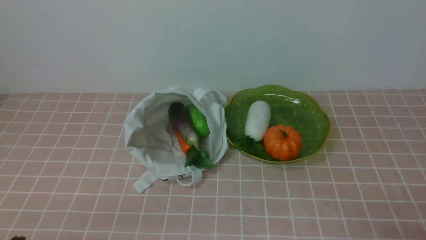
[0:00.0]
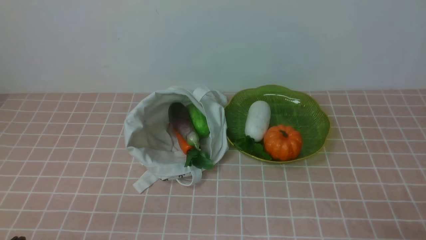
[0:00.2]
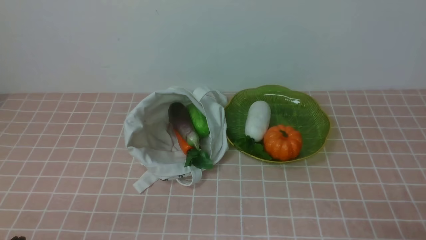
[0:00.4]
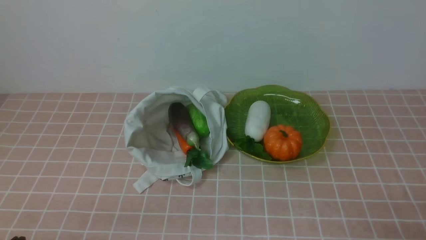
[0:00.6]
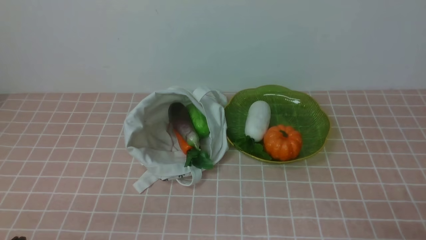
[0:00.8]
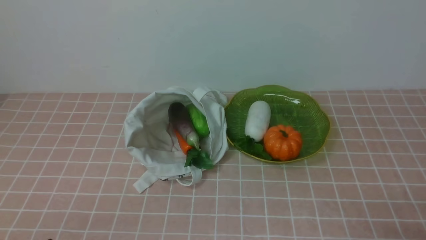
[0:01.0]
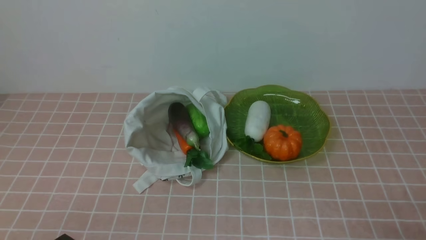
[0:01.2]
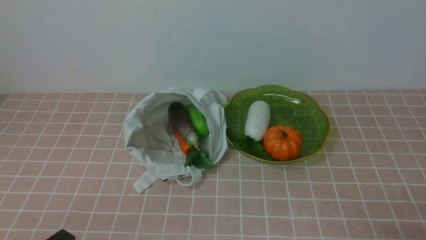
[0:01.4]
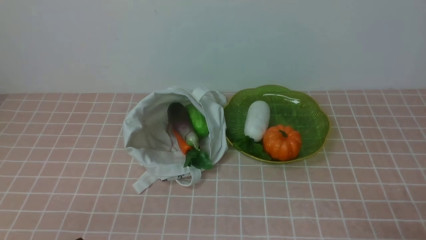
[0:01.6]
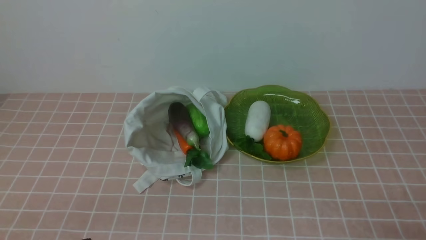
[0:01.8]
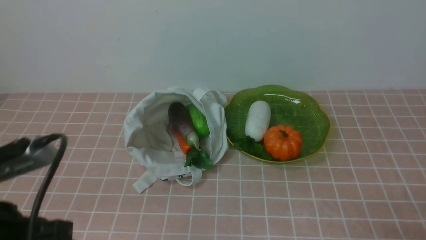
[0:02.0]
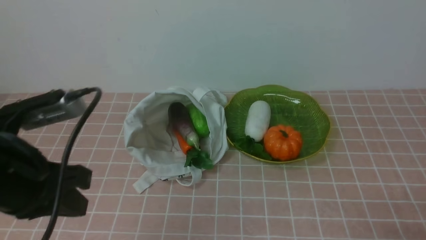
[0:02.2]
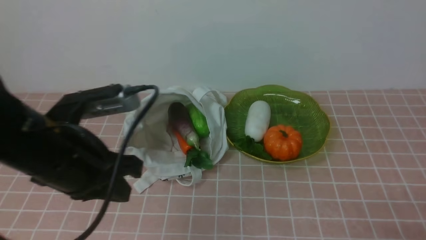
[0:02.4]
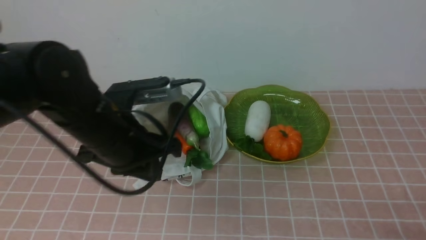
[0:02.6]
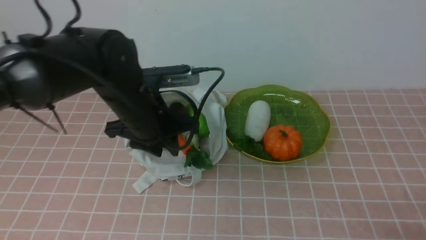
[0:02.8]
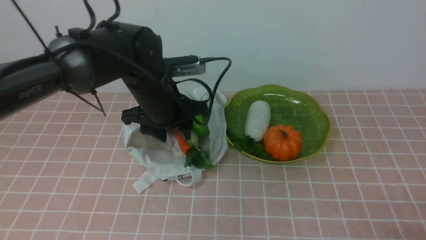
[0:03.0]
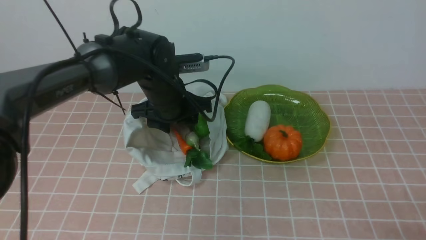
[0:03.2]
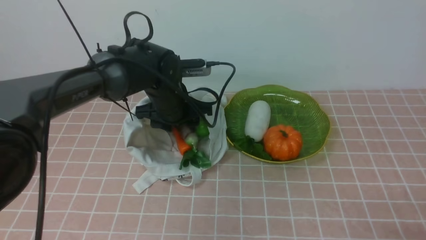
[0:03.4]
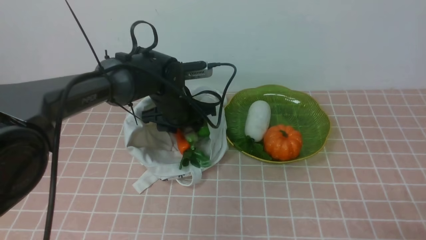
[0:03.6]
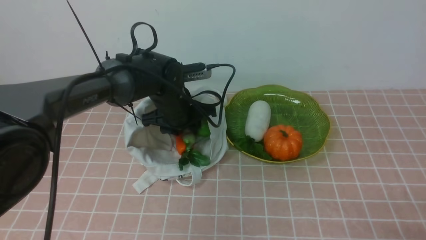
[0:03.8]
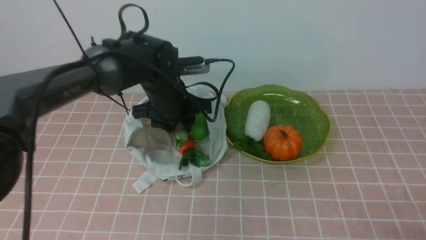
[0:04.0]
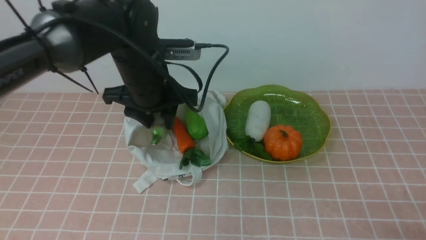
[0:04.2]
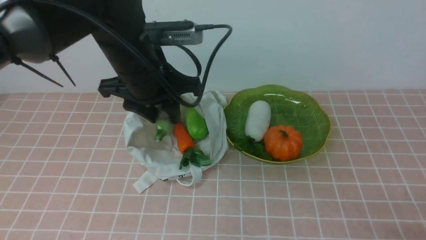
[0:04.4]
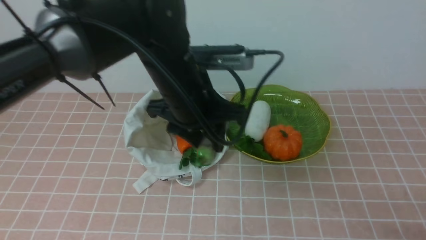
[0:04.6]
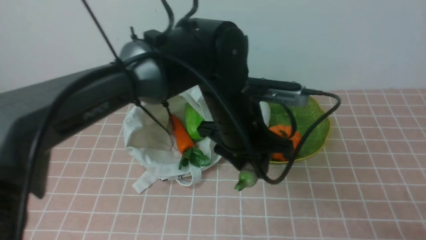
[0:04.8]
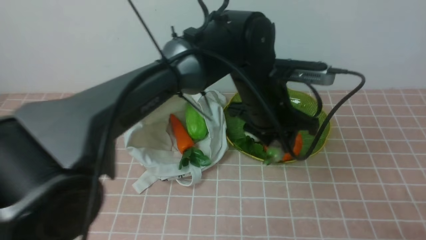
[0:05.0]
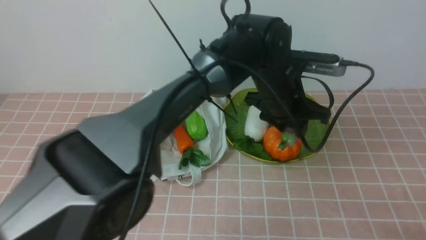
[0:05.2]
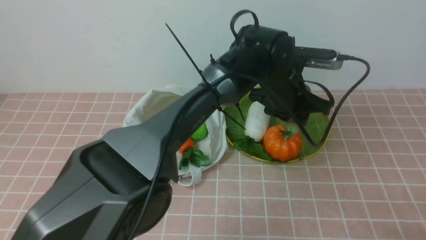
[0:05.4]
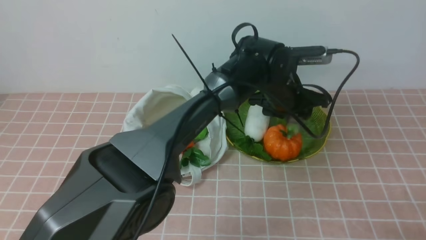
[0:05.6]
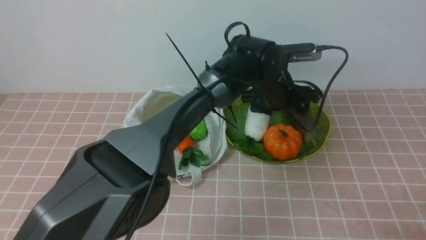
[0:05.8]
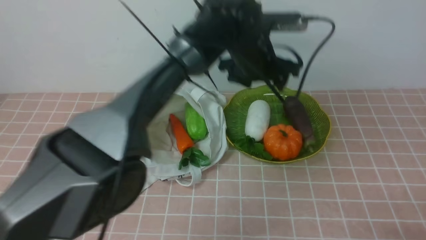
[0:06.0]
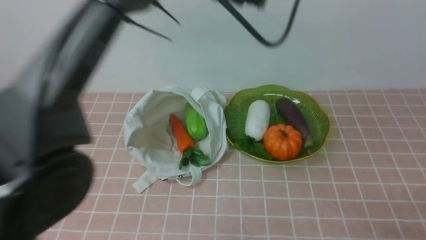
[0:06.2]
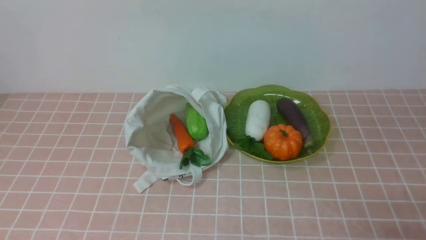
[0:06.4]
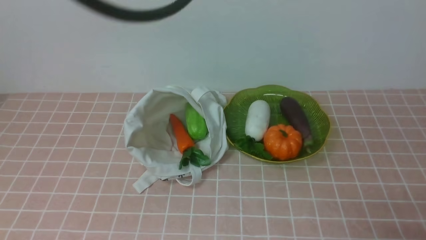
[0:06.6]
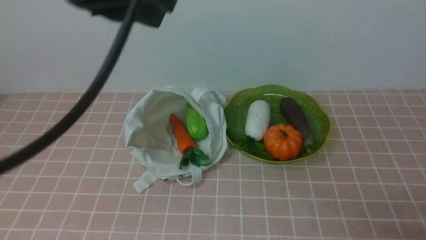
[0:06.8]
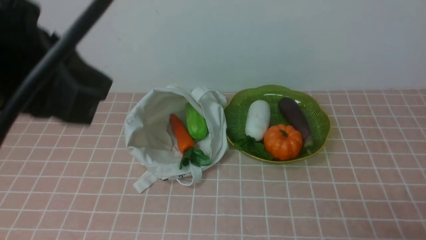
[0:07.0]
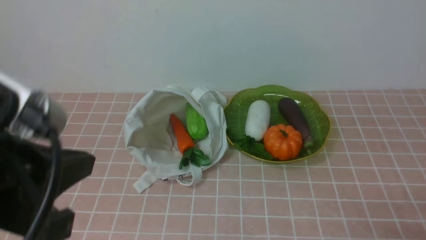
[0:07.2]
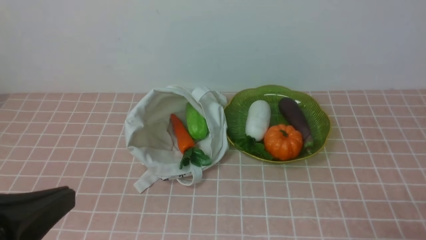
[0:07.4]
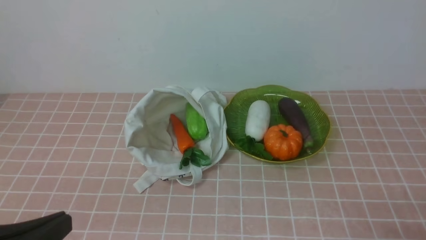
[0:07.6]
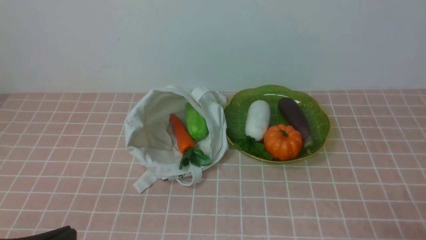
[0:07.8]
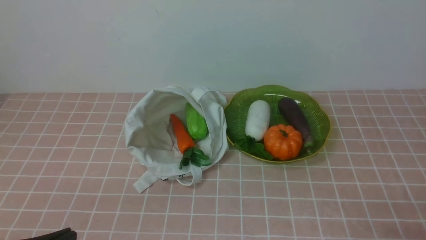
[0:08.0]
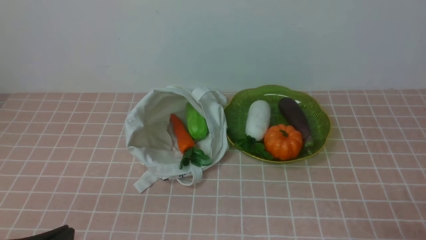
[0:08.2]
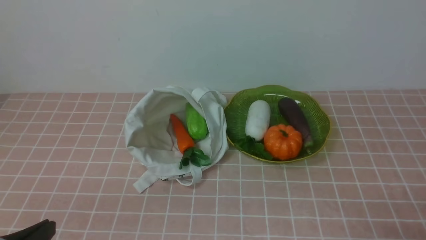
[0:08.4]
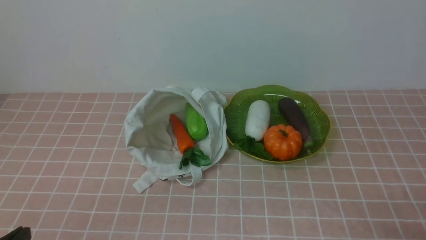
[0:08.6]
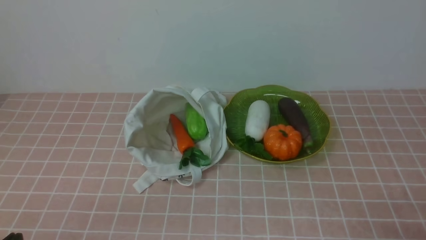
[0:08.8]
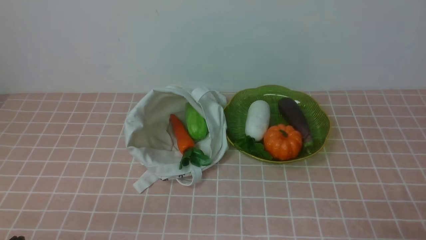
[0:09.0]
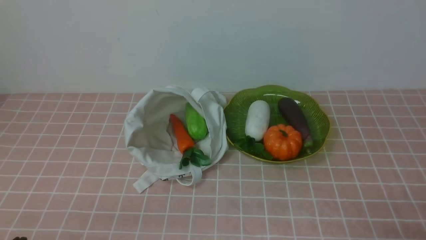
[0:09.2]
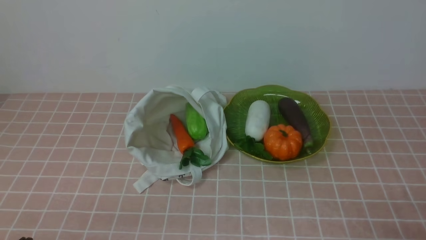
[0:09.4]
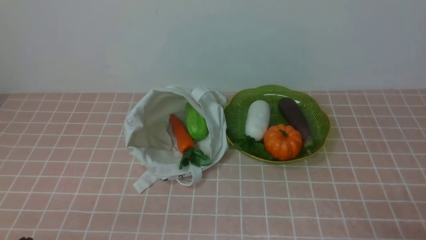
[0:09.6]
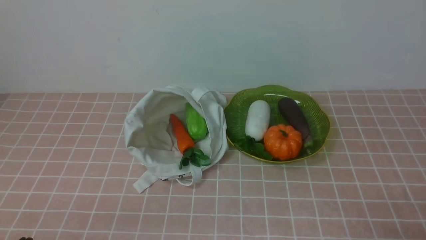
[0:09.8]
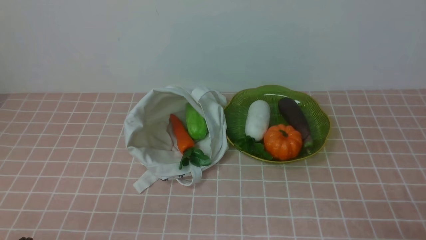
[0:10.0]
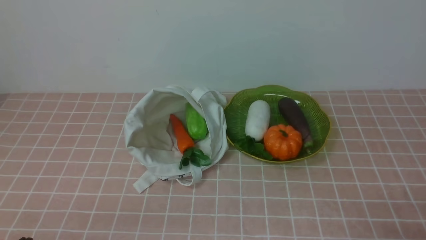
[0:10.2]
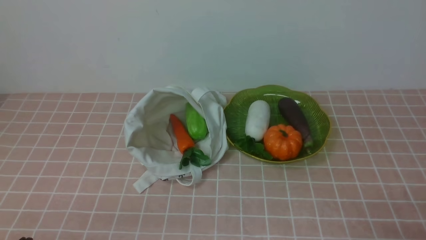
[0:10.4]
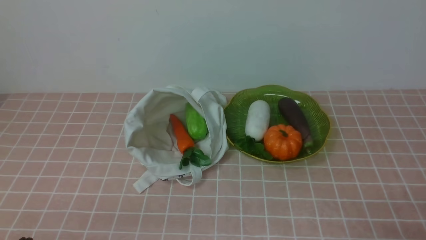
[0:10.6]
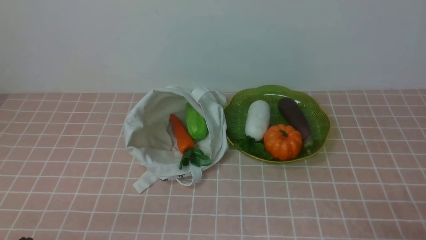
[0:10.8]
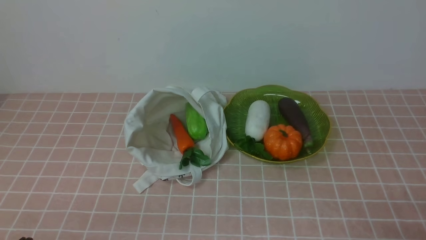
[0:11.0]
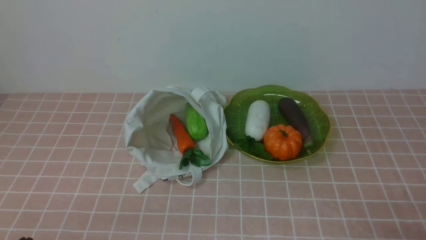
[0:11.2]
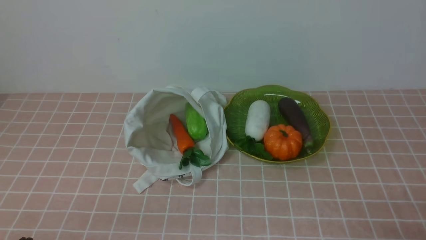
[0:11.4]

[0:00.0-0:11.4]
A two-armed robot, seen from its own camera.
Task of the whole recording: take vegetables from bag on pink coffee tablecloth place on plate.
Step, 0:00.0 to 0:03.6: Grasp the eggplant with left gripper.
Step, 0:04.0 to 0:05.8: Place the eggplant on the plate with left gripper.
0:01.4 to 0:02.8: The left gripper goes roughly 30 cm forward and to the right, and opens its fingers.
0:04.2 to 0:05.6: The left gripper moves to the right, downward and forward, about 20 cm.
0:05.6 to 0:07.2: The left gripper shifts about 50 cm backward, to the left and upward, and closes up.
0:07.2 to 0:08.6: The left gripper goes about 20 cm downward.
0:10.0 to 0:11.4: The two grippers keep their place.
